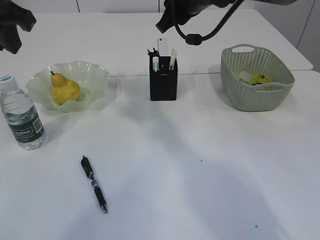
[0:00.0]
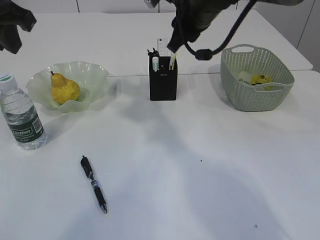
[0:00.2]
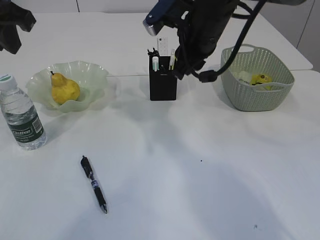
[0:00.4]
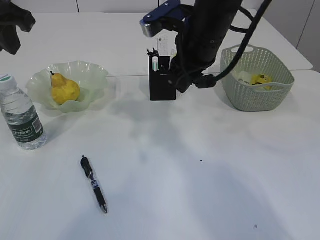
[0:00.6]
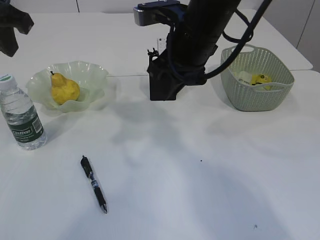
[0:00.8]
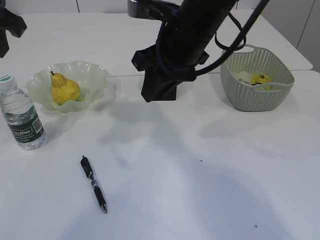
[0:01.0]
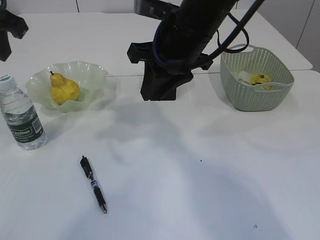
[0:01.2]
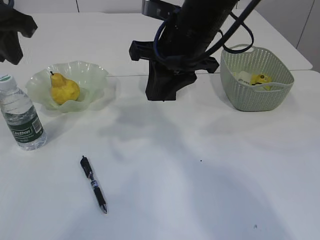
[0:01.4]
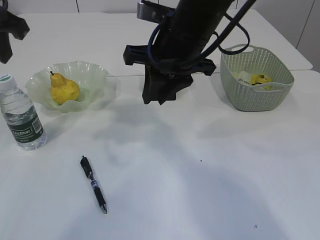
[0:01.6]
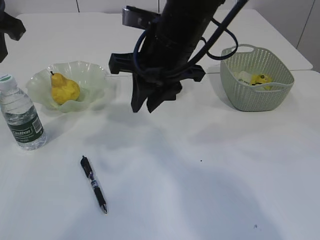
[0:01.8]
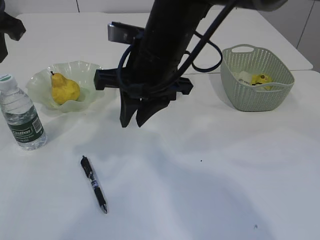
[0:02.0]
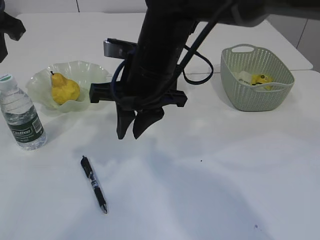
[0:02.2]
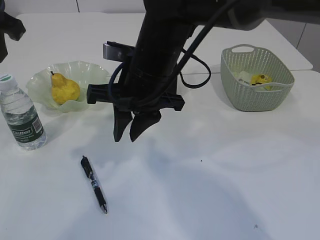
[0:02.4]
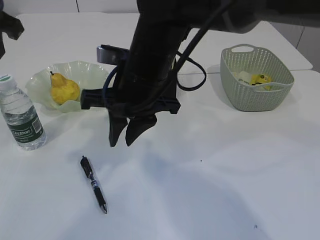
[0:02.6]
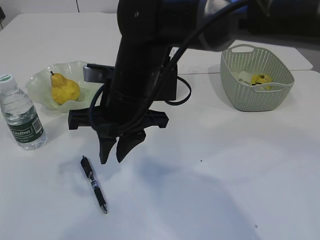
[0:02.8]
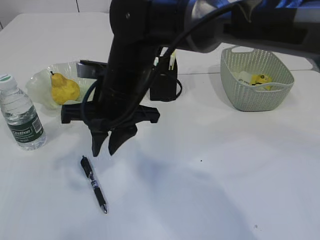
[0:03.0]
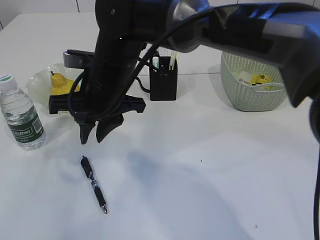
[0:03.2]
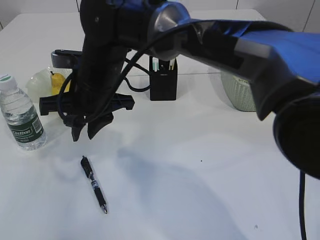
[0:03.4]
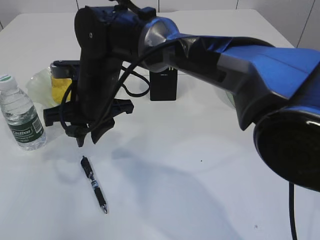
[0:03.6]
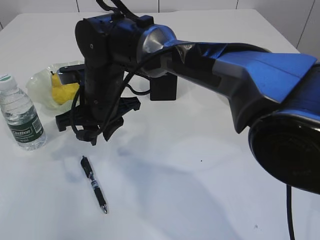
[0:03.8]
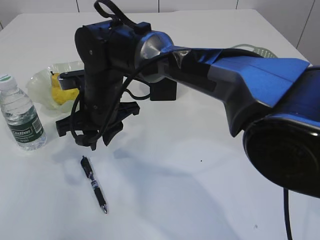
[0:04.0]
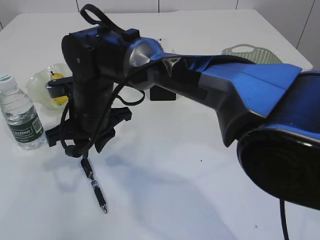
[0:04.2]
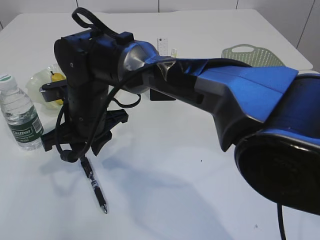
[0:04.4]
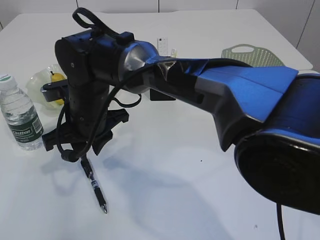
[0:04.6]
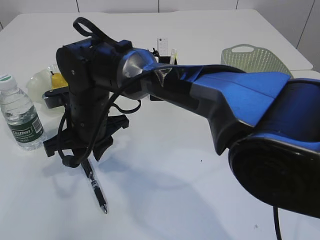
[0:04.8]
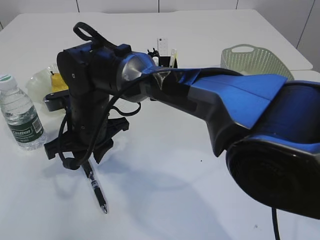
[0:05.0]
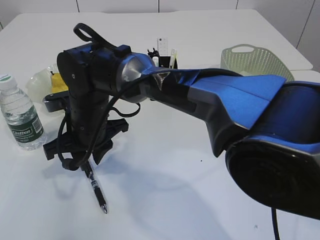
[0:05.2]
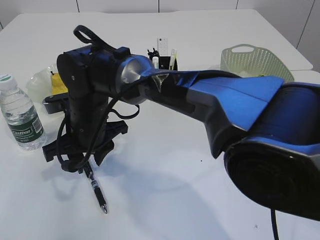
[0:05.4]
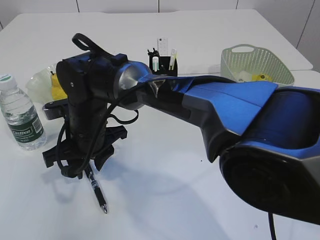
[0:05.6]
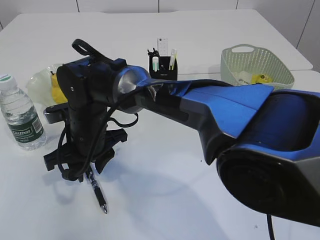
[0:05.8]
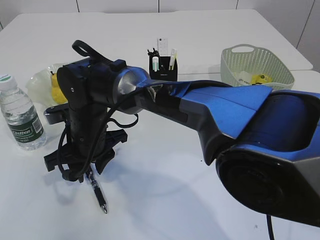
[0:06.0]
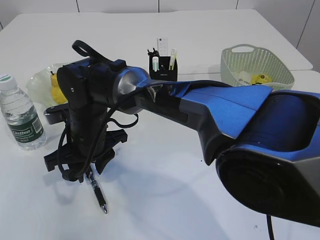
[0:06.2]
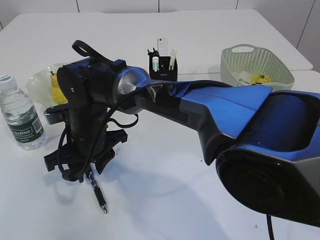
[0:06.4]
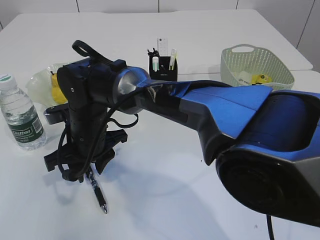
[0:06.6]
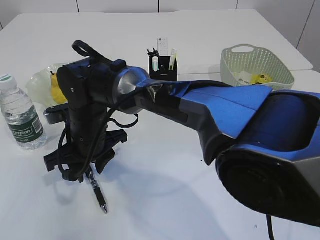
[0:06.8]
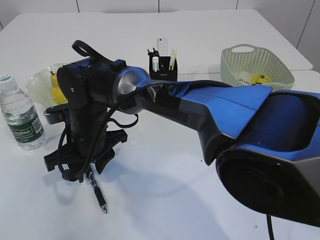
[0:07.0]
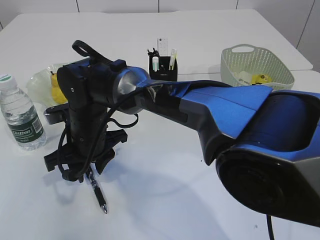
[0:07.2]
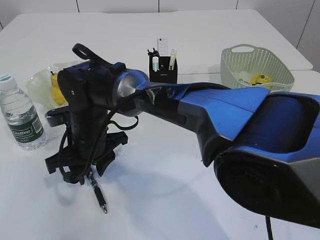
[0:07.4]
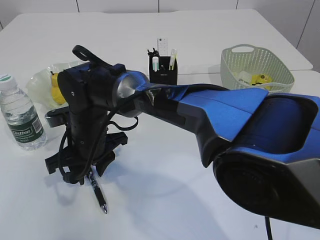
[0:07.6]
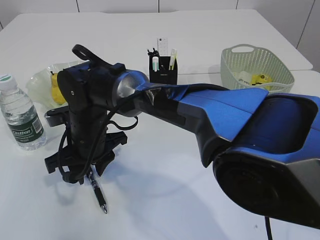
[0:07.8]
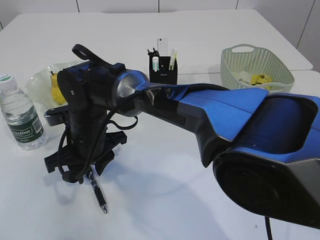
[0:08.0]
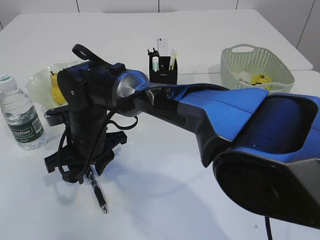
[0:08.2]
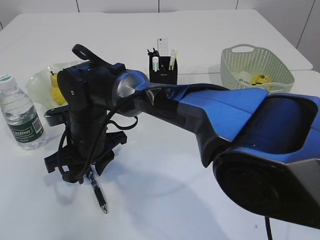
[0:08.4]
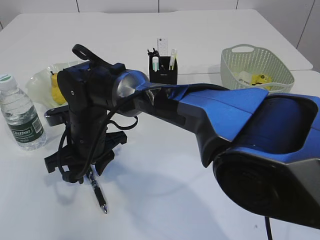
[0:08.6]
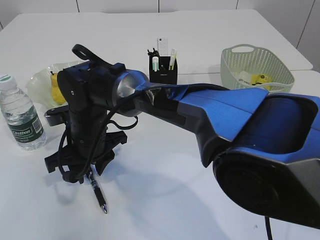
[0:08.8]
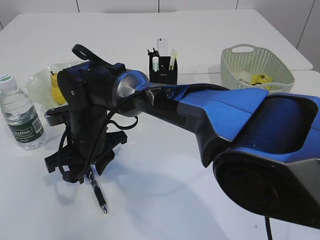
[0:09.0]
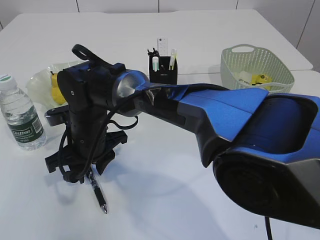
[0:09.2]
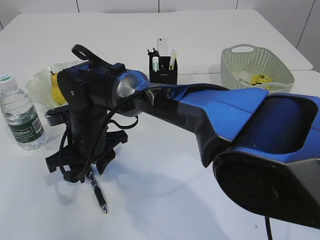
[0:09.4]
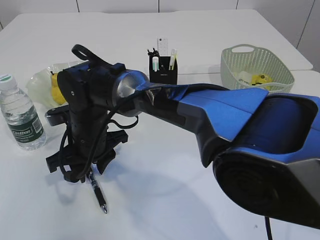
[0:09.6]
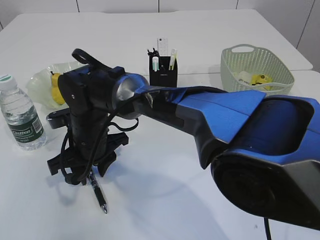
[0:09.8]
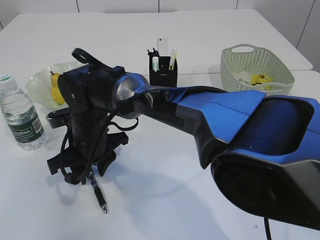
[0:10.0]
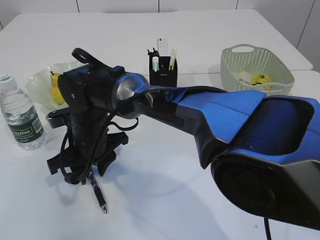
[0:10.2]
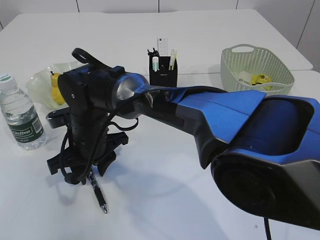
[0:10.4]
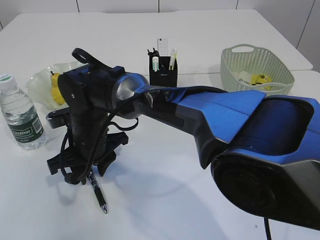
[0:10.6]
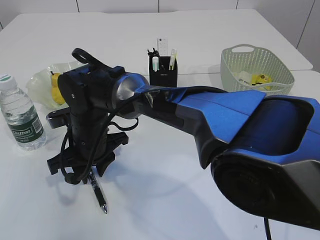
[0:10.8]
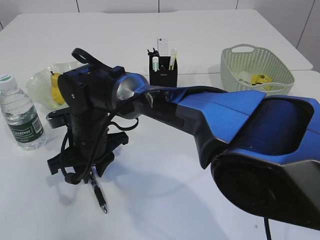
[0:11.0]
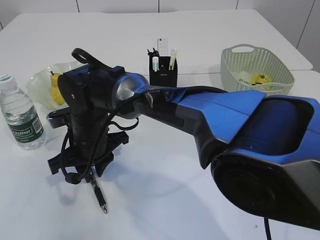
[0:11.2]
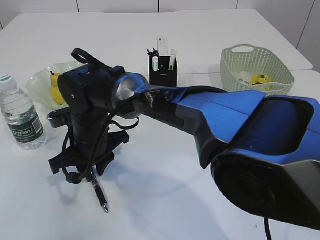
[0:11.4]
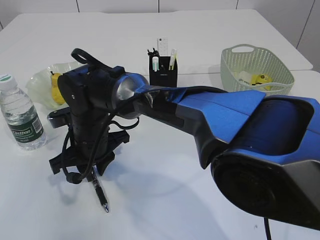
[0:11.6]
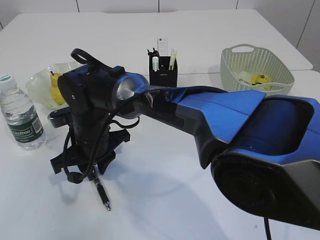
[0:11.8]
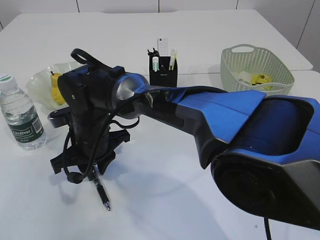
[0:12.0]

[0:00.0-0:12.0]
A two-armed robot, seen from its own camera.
0:00.0 to 0:01.6: The right gripper shifts approximately 10 cm backward.
0:01.6 to 0:03.0: The right gripper travels to the left and downward by roughly 10 cm. Meanwhile the left gripper changes place by some 5 cm.
0:03.0 to 0:04.4: The right gripper moves to the left, about 5 cm.
0:06.0 to 0:12.0: Both grippers stay about where they are.

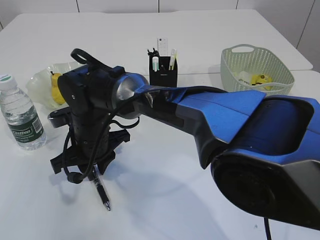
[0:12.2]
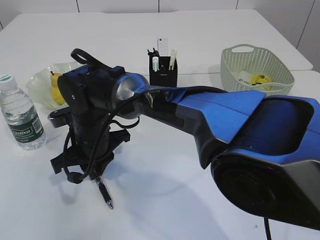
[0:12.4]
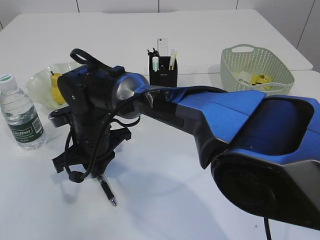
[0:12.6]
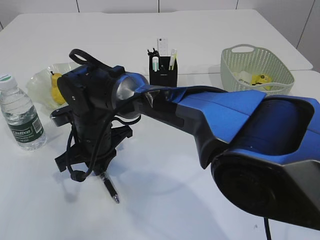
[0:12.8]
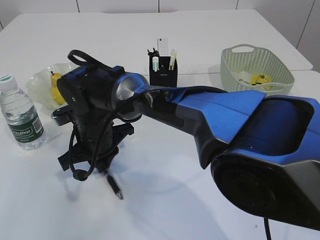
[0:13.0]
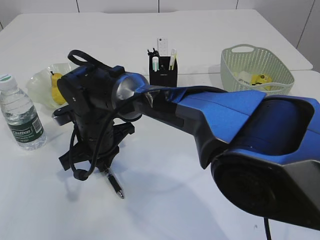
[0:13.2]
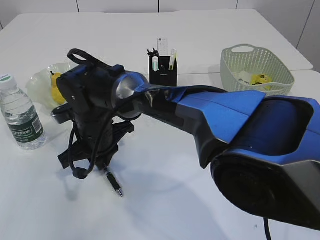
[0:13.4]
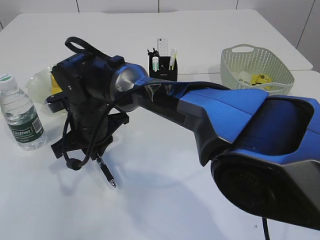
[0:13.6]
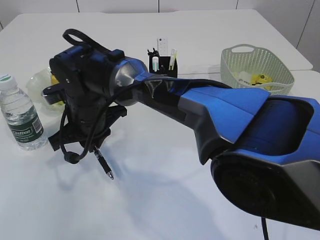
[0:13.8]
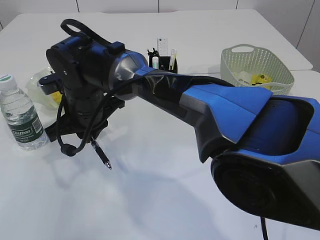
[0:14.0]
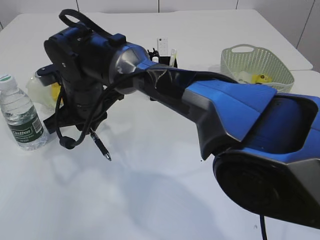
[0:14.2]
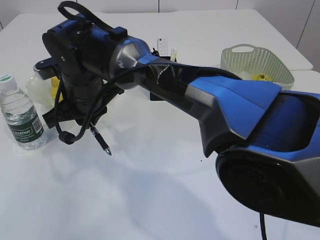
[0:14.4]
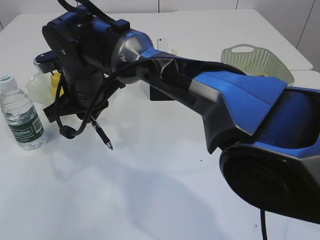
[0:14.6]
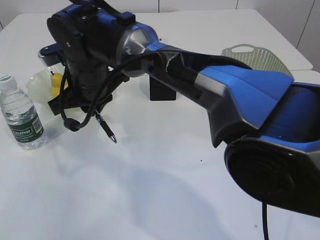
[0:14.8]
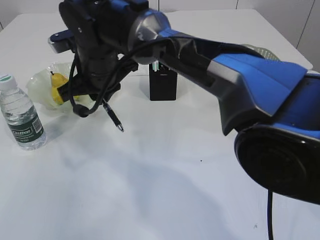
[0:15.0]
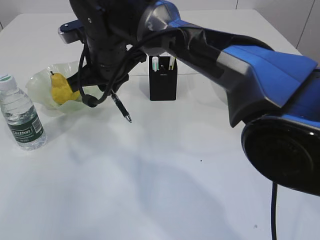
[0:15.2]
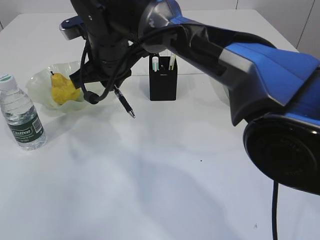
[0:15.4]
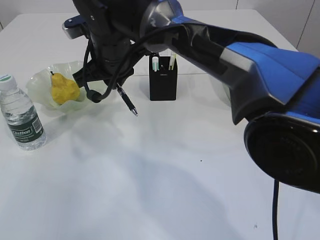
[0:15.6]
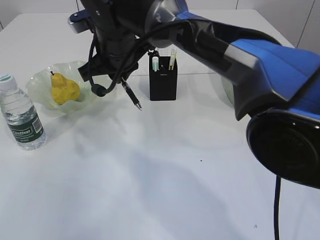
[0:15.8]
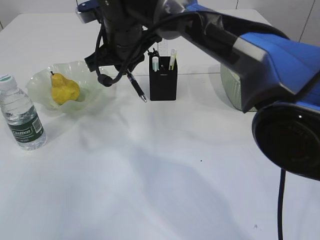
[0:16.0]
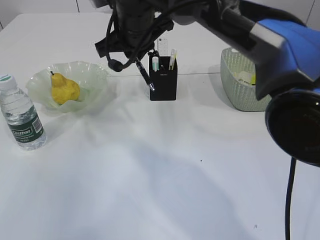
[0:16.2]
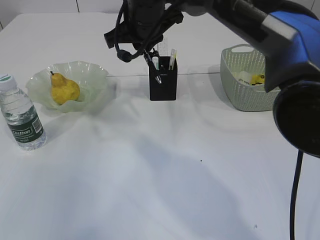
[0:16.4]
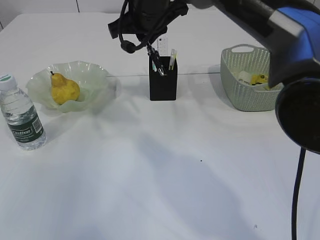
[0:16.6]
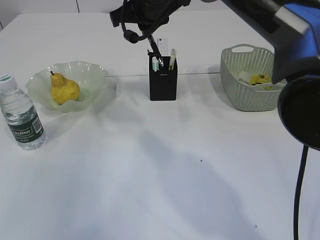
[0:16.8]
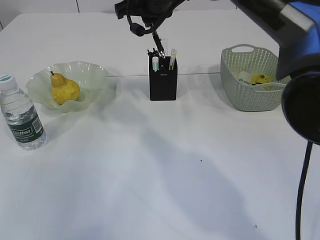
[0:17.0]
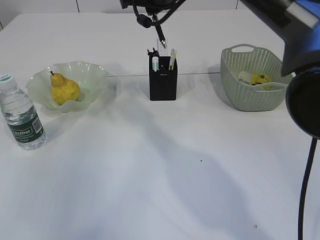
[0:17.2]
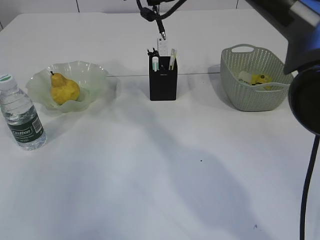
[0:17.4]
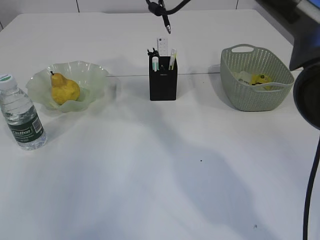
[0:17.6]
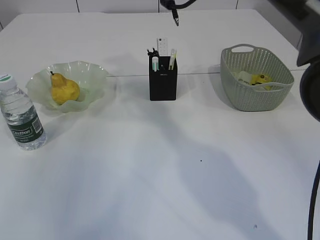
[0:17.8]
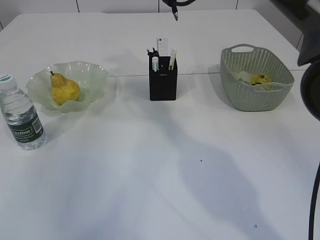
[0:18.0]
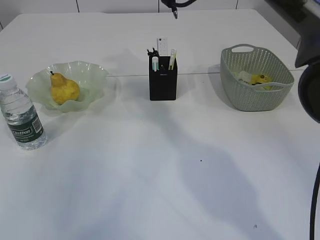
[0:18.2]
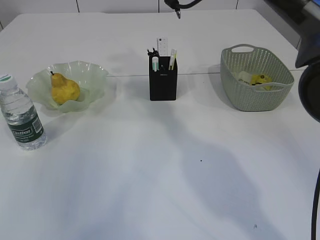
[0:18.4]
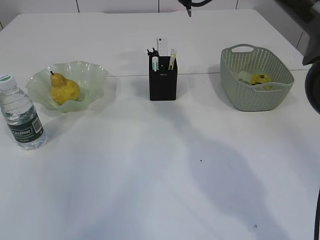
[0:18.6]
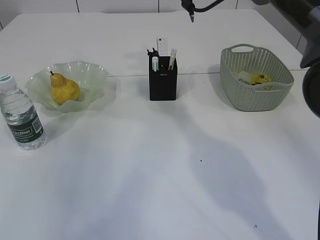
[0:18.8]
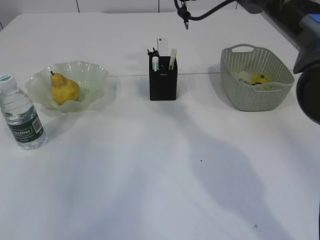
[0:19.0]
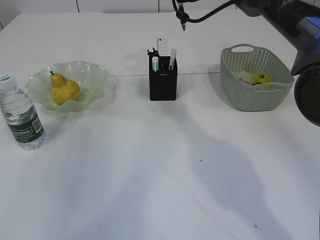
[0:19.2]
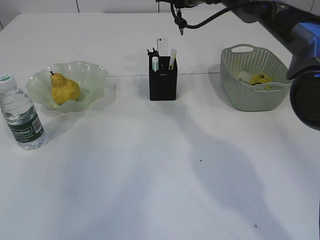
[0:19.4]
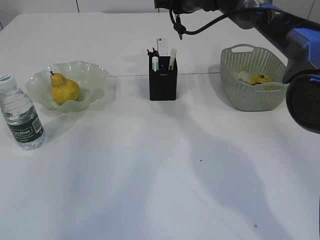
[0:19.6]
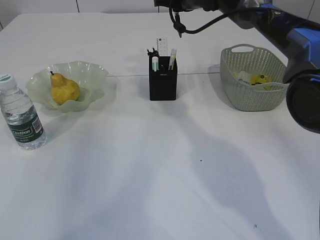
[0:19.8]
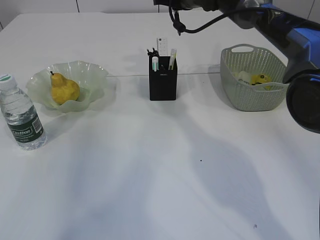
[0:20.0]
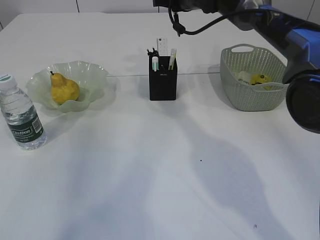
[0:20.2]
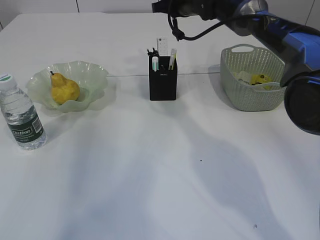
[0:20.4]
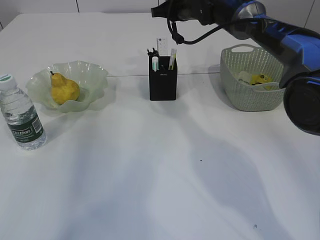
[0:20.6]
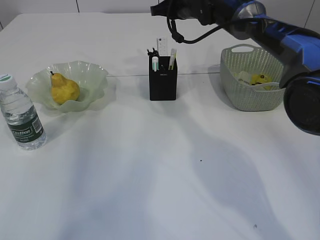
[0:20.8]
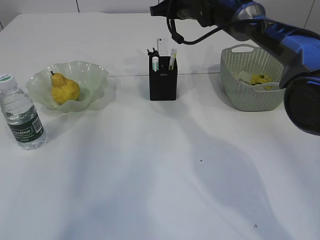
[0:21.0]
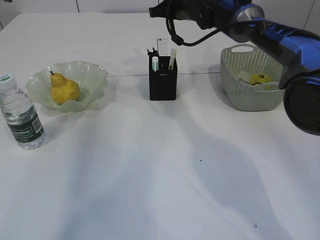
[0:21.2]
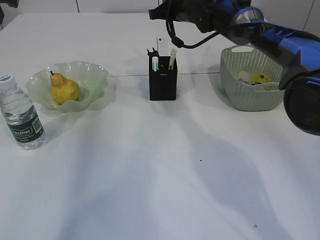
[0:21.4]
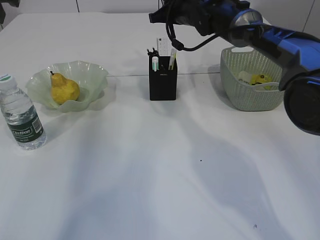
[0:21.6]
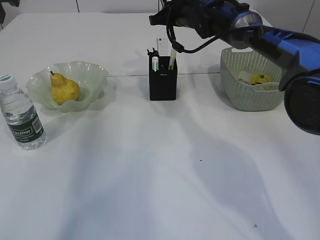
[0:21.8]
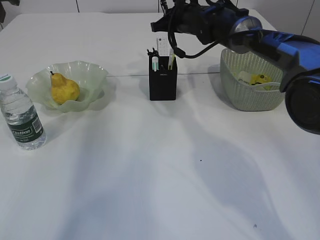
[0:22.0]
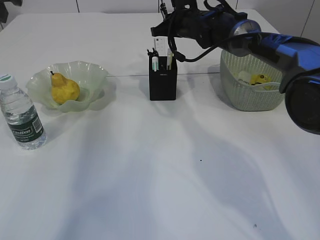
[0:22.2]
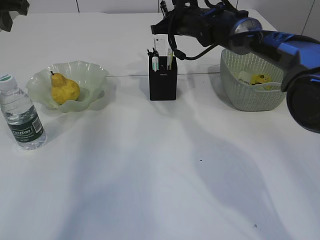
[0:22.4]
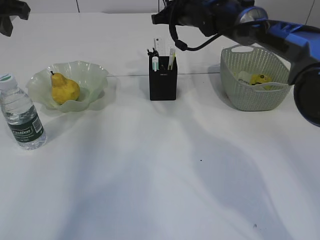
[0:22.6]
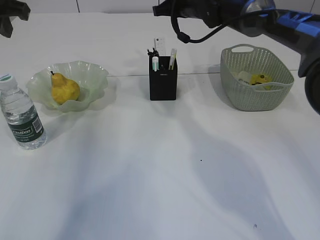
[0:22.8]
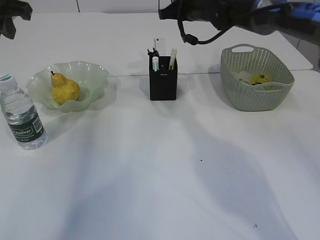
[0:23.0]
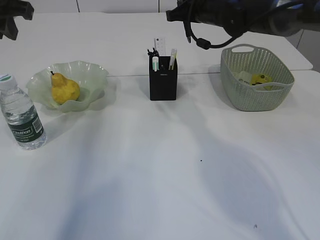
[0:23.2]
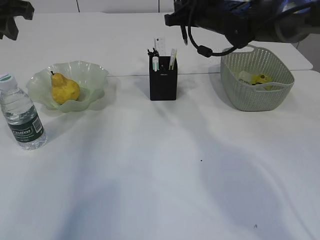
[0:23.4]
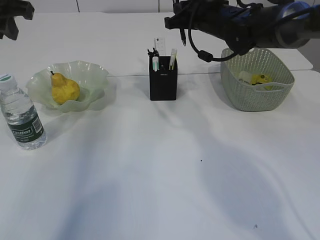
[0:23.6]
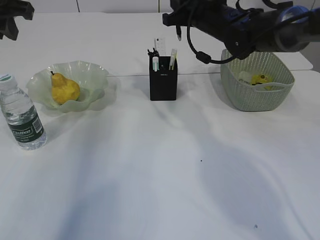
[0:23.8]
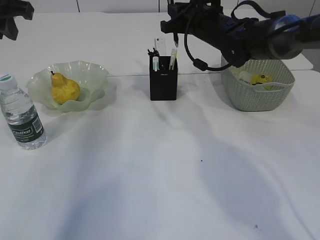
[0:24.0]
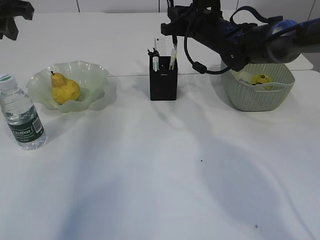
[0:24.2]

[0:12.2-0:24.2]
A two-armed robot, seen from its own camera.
0:12.2 to 0:13.8: The grippers stay close to where they were, moving slightly.
0:13.8 to 0:15.2: The right gripper heads upward, covering some 10 cm.
0:15.2 to 0:16.6: The right gripper travels to the right and upward by approximately 10 cm.
0:16.6 to 0:18.2: The right gripper shifts approximately 10 cm to the right and forward.
0:18.2 to 0:19.8: The right gripper goes roughly 5 cm downward.
0:19.8 to 0:21.2: The grippers move only a little.
0:21.2 to 0:22.6: There are only small adjustments of the grippers.
0:22.6 to 0:24.2: The right gripper moves backward, roughly 5 cm.
